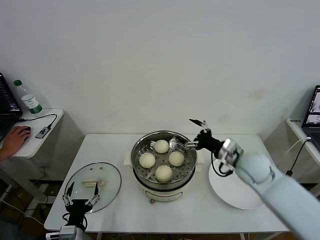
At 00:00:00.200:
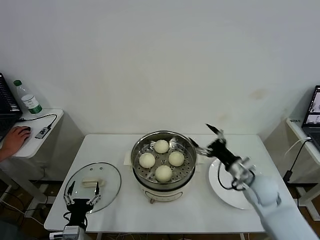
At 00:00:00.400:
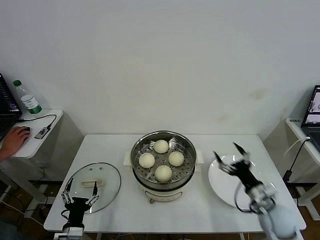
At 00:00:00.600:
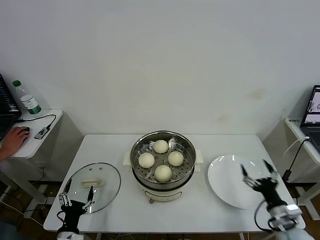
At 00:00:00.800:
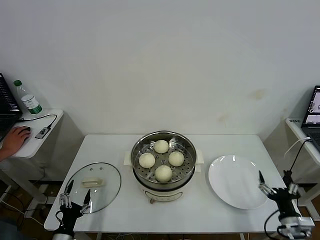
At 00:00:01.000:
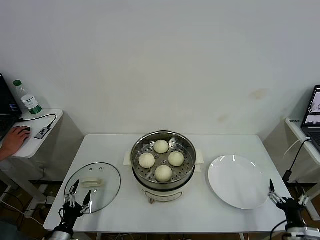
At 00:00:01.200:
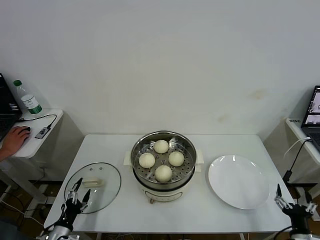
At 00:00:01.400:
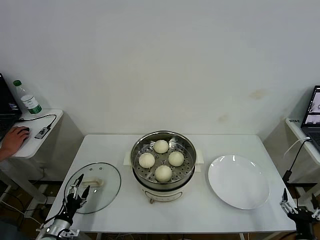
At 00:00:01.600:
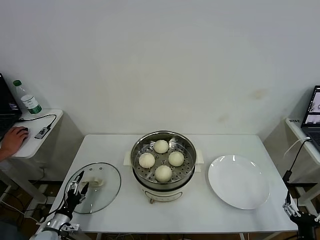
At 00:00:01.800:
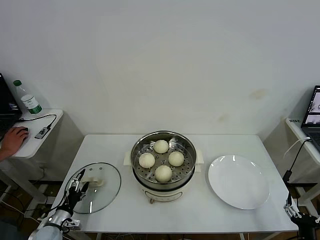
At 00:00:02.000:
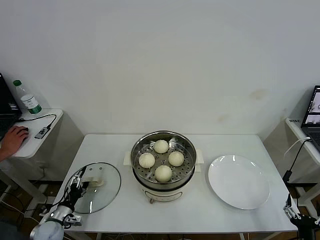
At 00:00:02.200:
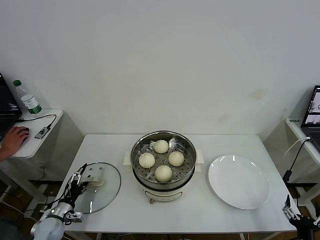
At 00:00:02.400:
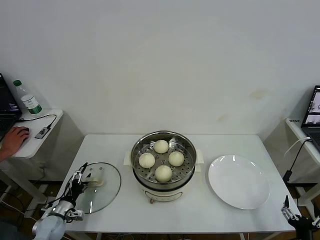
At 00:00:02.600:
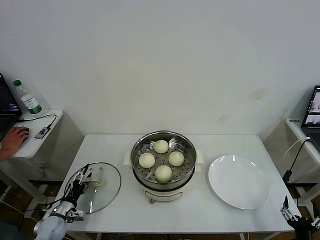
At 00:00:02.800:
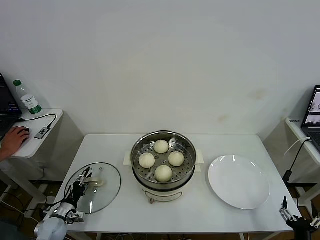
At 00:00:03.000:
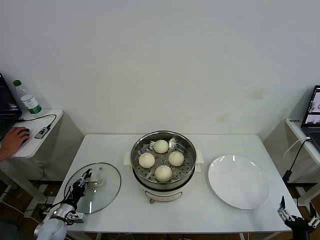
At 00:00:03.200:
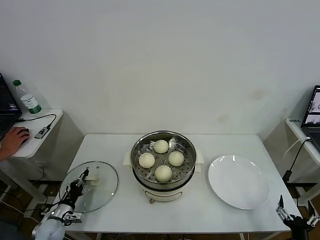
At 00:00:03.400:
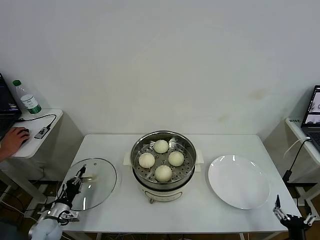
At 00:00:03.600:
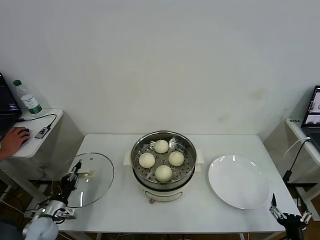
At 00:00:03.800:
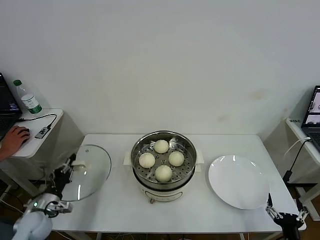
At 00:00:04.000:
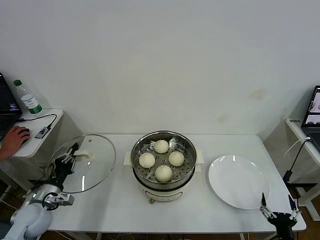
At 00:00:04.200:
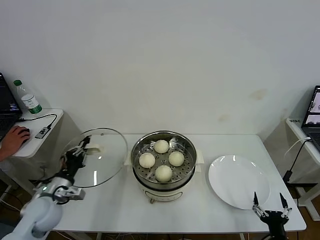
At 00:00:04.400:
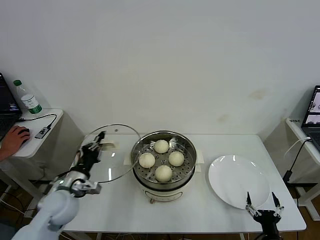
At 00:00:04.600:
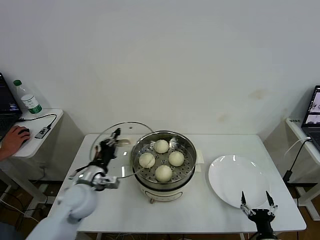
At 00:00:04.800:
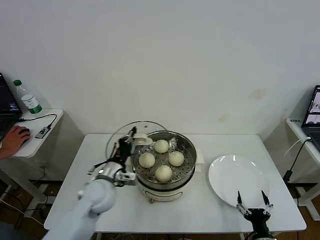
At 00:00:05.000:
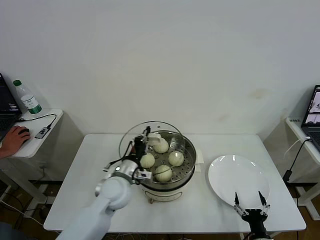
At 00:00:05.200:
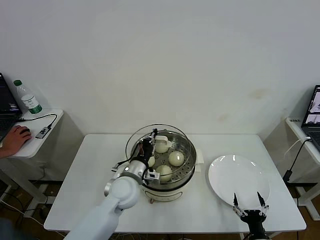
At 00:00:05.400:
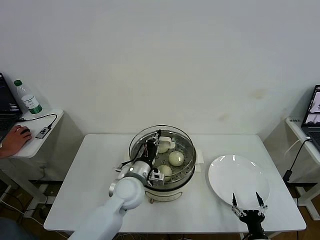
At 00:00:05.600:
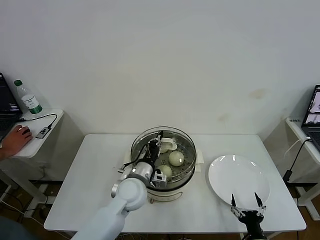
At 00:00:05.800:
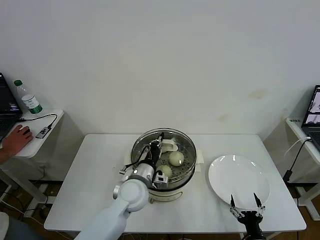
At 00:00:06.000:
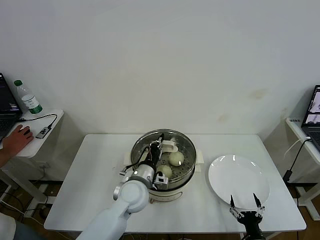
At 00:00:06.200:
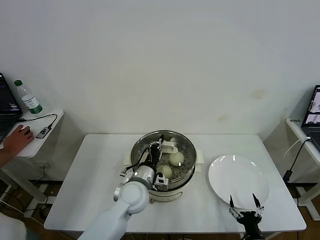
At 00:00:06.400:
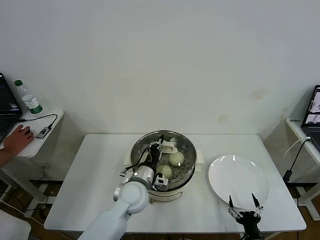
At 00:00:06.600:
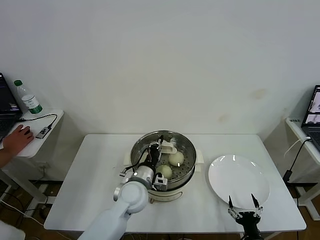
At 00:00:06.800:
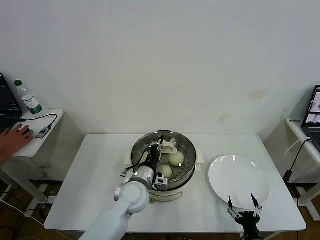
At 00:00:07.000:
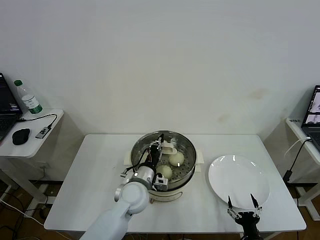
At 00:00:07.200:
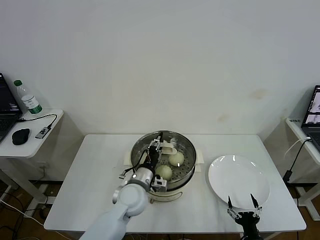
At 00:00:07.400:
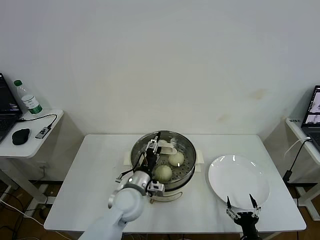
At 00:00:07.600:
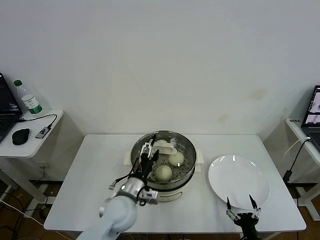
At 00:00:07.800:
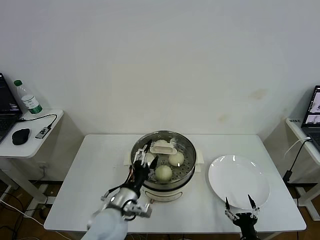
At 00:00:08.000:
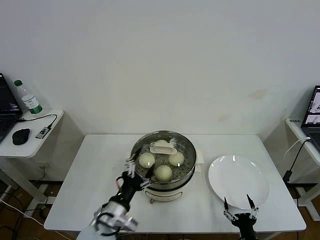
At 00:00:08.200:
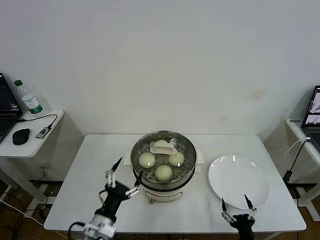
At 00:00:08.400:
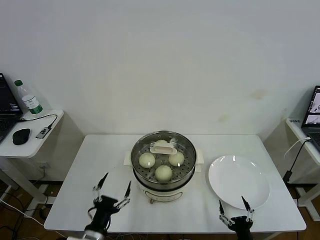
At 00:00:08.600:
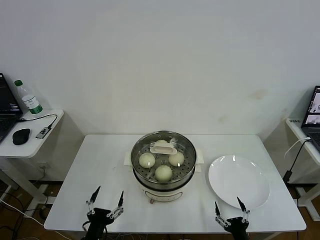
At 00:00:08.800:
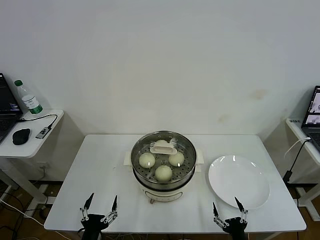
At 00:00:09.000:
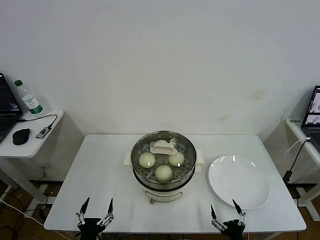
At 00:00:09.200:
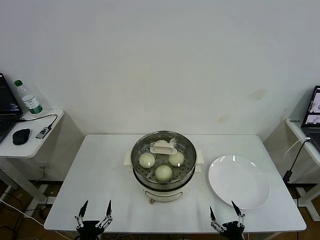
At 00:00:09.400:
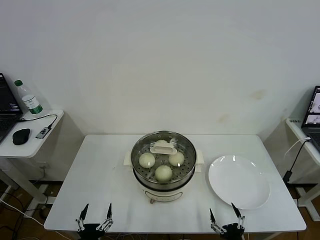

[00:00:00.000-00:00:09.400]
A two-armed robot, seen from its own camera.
Task of the whole recording: take steamed baozi put them in steamer then cover it.
Step, 00:00:00.000 to 00:00:03.400: Grasp the pot lid with left gripper.
Step, 00:00:03.600 to 00:00:07.400: Place the pot lid on the steamer with left gripper.
00:00:00.000 to 00:00:01.600: The right gripper moves backward, downward and to the right, roughly 35 cm. Meanwhile the left gripper moves to the left, downward and forward, roughly 15 cm.
00:00:01.600 to 00:00:03.200: The left gripper goes some 5 cm forward, and closes up.
00:00:03.200 to 00:00:04.800: The left gripper shifts about 30 cm to the right and upward. Meanwhile the right gripper goes approximately 5 cm to the left.
00:00:04.800 to 00:00:06.200: The left gripper goes about 10 cm to the right.
00:00:06.200 to 00:00:07.800: The left gripper moves backward, about 10 cm, and opens its fingers.
00:00:07.800 to 00:00:09.400: The left gripper goes about 25 cm backward, downward and to the left; the right gripper shifts by approximately 5 cm.
